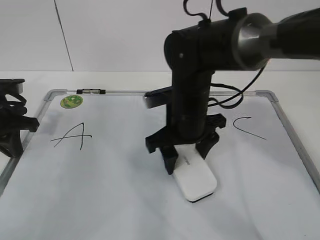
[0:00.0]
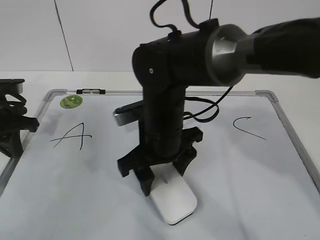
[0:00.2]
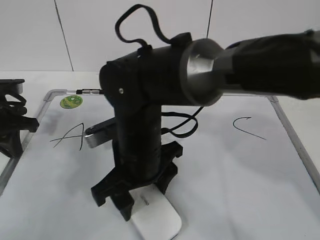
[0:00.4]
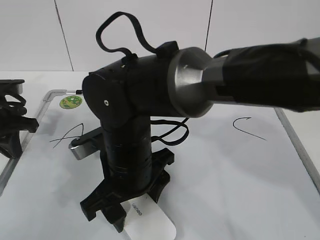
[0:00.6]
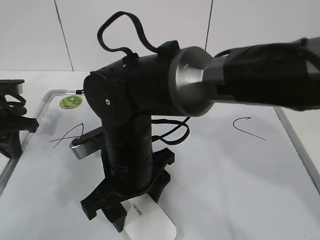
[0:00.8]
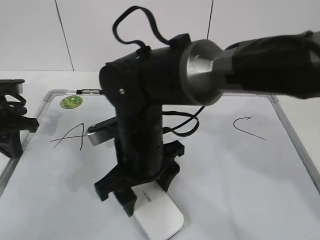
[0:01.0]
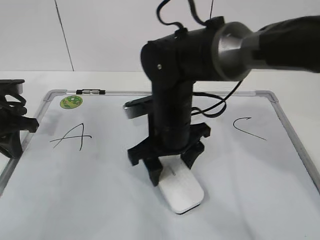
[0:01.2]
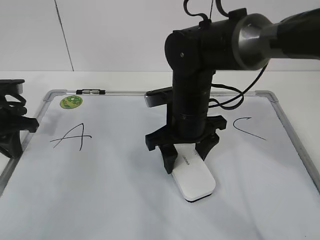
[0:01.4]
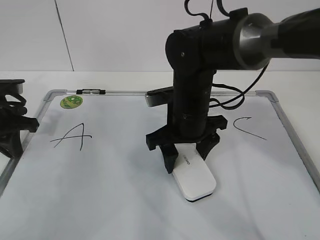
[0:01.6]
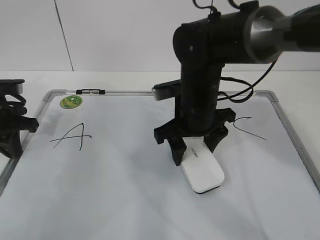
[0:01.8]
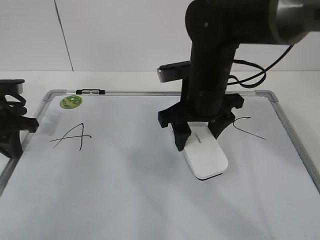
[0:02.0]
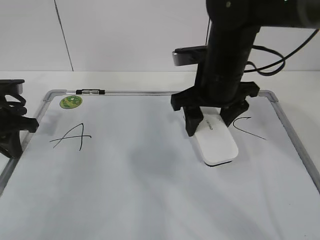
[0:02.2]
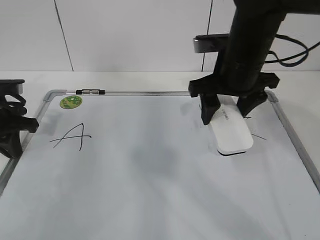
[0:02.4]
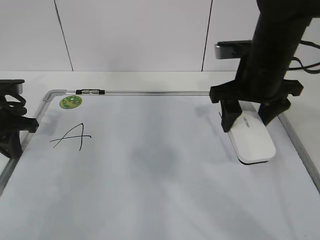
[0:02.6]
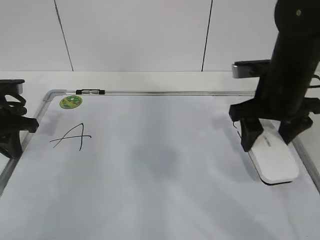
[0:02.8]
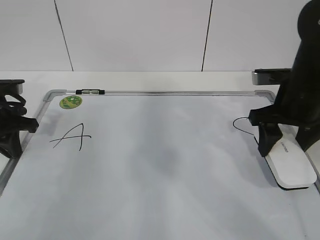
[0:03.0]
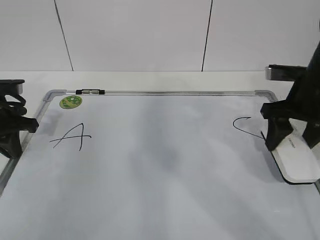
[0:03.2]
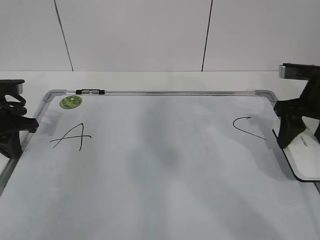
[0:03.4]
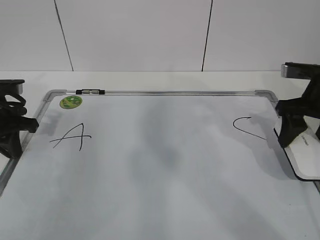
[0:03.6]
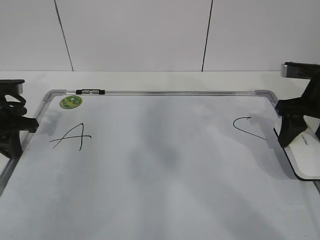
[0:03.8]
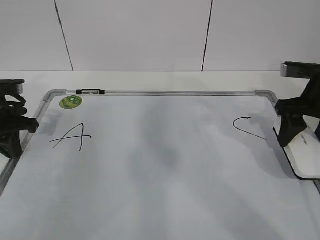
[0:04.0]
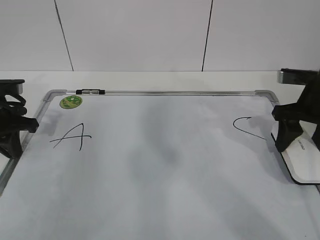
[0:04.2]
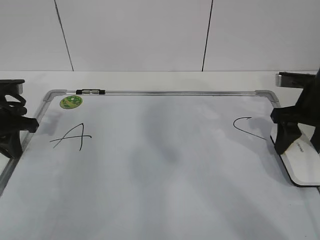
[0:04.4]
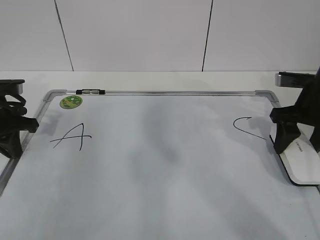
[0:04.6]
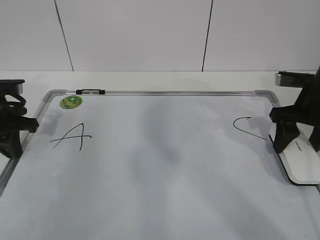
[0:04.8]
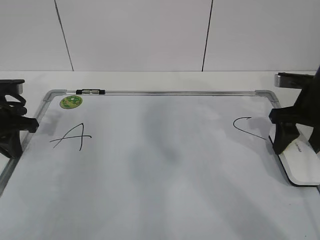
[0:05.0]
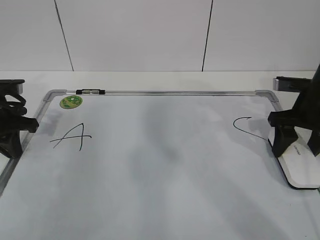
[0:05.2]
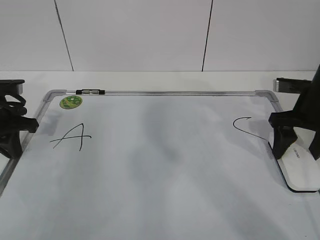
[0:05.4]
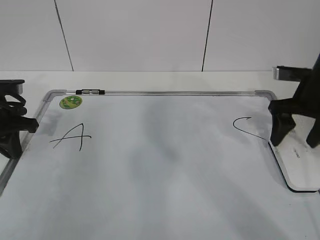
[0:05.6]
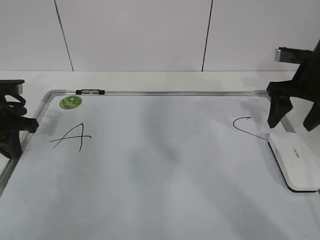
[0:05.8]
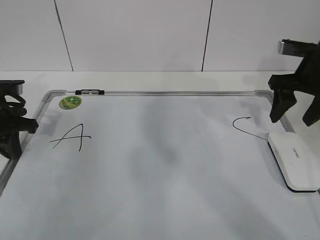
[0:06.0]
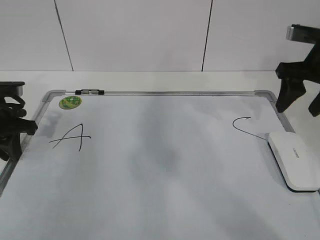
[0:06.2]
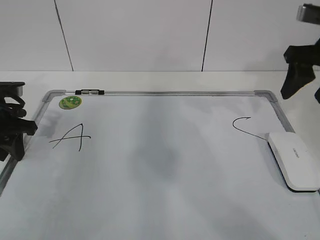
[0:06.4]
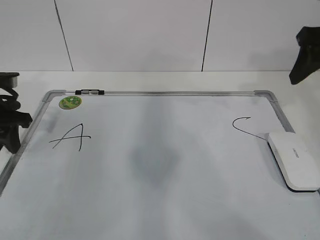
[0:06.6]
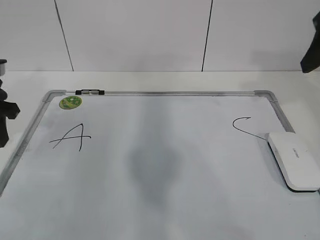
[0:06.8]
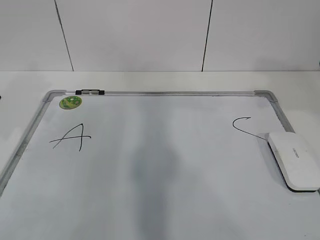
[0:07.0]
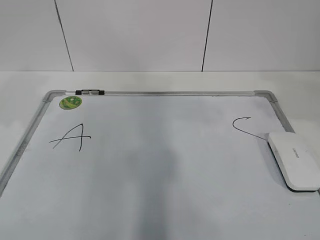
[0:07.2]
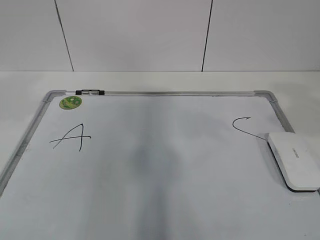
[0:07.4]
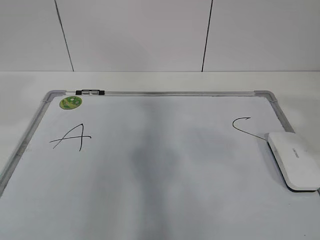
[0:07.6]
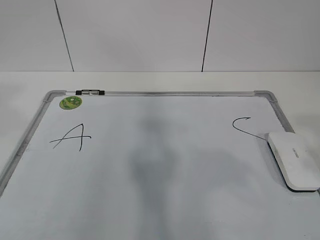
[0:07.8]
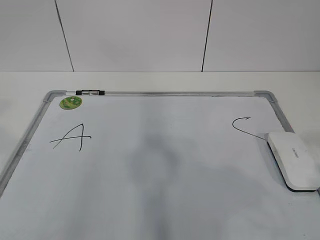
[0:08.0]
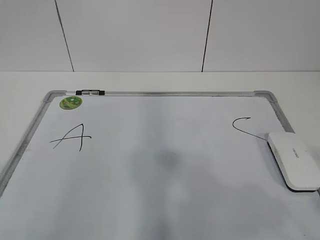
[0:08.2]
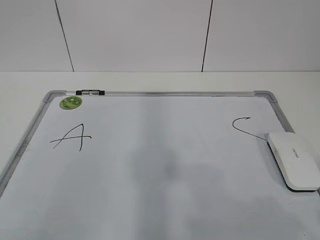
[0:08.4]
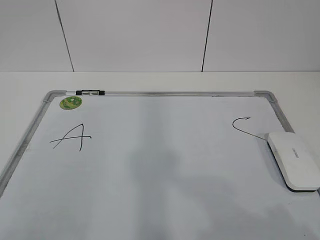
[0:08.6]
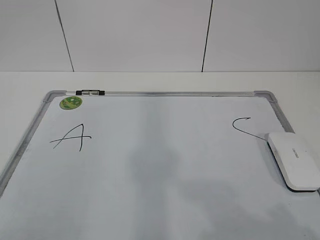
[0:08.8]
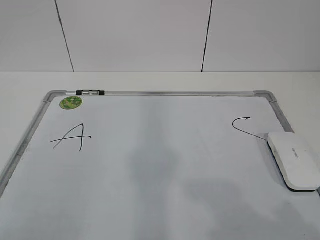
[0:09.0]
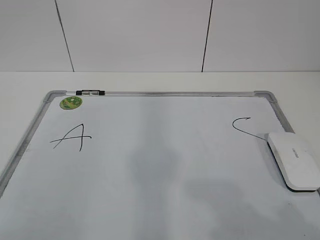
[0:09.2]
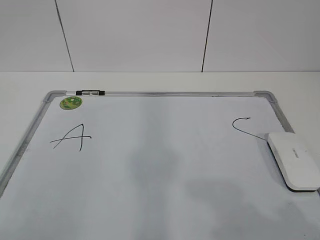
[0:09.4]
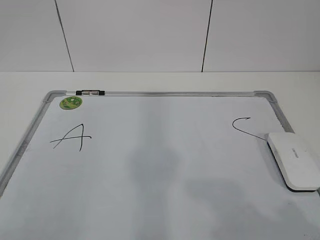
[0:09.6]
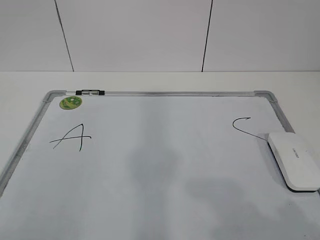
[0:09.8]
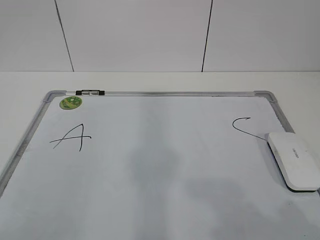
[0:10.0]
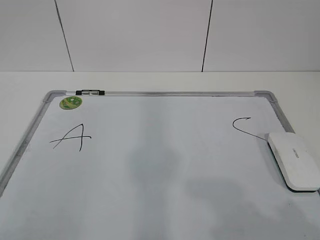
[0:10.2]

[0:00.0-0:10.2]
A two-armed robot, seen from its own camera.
Task of the whole recording: pick up the eraser on the blackboard and erase the letter "B".
Step, 0:00.0 to 0:02.2: Put down the eraser with your right hand.
0:00.0 to 0:01.4: The right gripper moves roughly 10 cm to the left and comes back.
0:01.4 to 0:03.0: The right gripper travels to the right by some 15 cm.
0:03.0 to 0:04.4: The right gripper moves to the right, some 5 cm.
0:04.4 to 0:05.8: The right gripper opens up.
0:05.8 to 0:07.2: The right gripper goes some 25 cm backward and upward, and closes up, while the left gripper is displaced upward and backward by some 20 cm, and opens up.
0:07.2 to 0:08.8: The left gripper moves backward, approximately 25 cm. Meanwhile the right gripper heads backward and downward, covering approximately 25 cm.
0:08.8 to 0:10.2: Neither gripper changes place.
